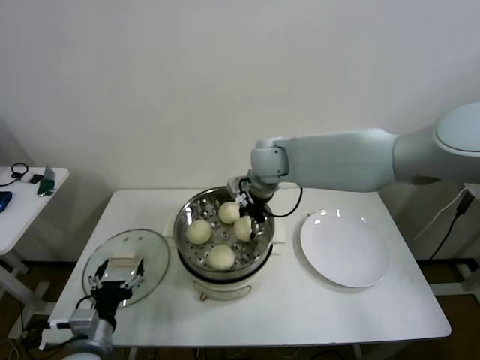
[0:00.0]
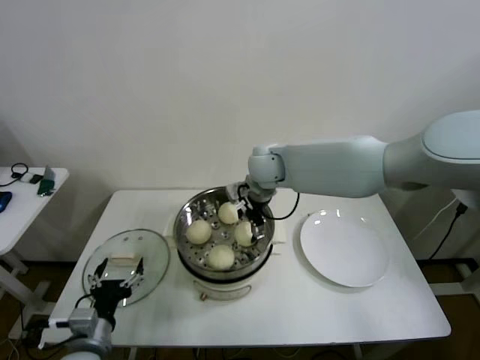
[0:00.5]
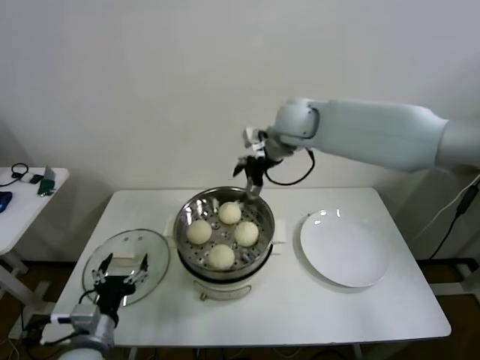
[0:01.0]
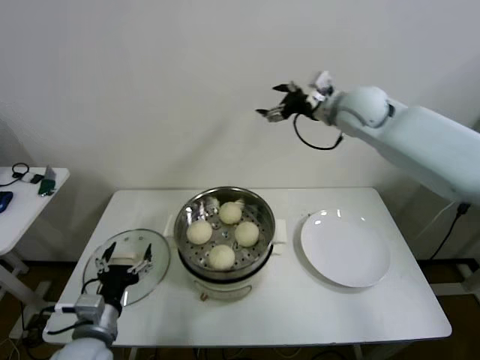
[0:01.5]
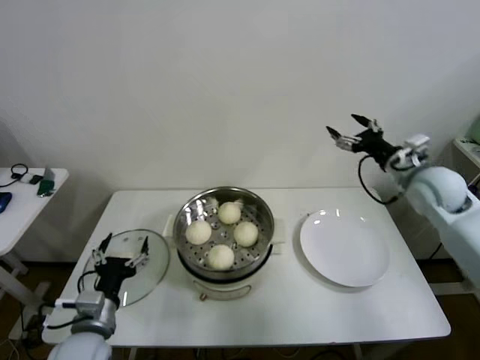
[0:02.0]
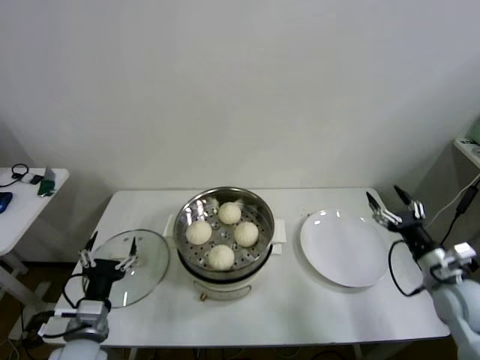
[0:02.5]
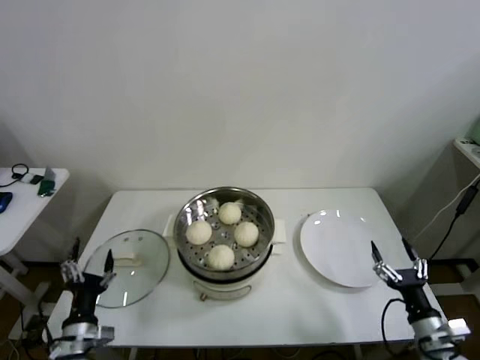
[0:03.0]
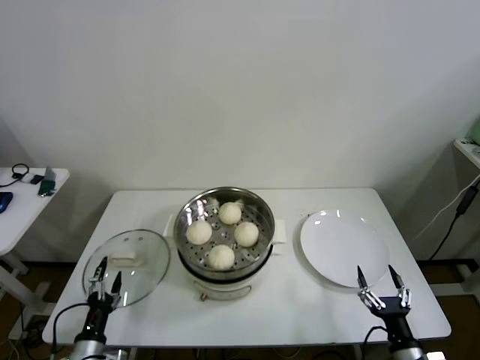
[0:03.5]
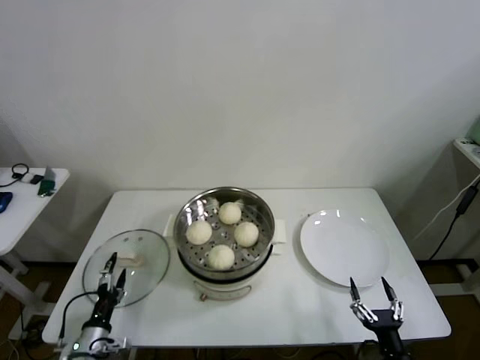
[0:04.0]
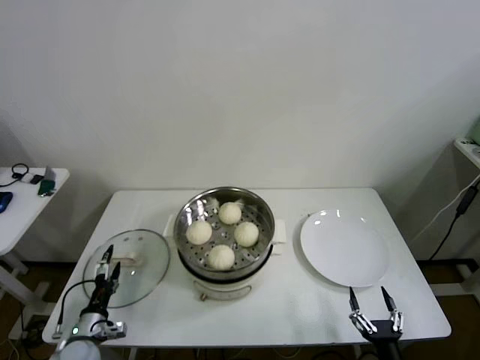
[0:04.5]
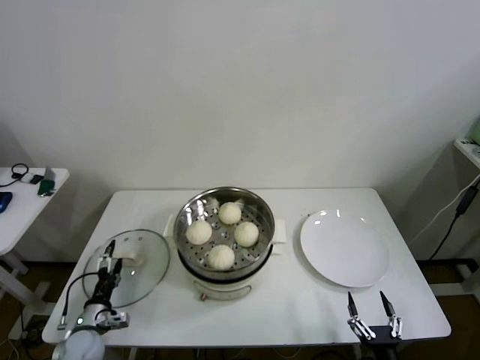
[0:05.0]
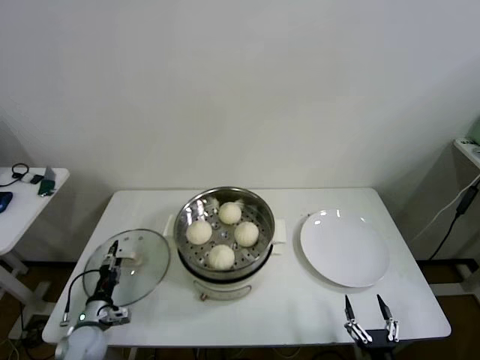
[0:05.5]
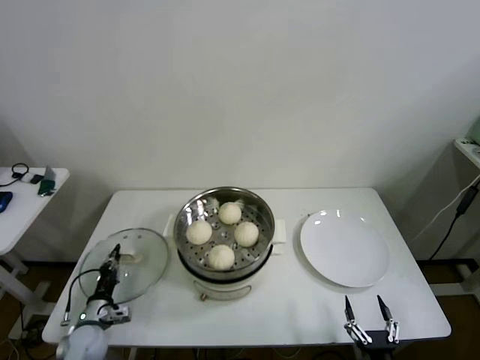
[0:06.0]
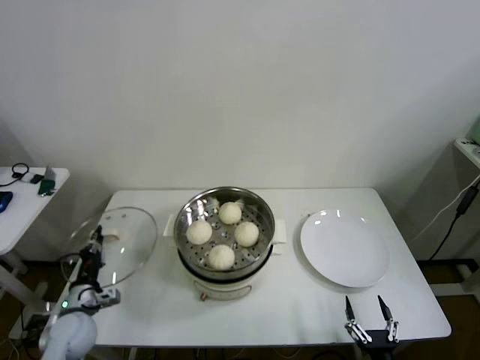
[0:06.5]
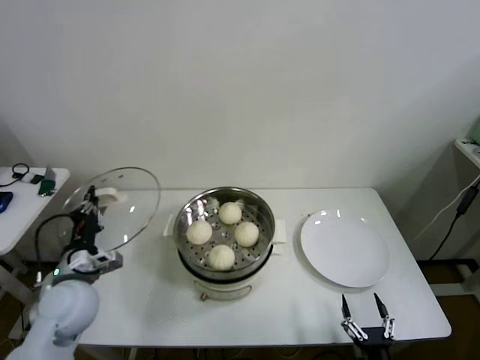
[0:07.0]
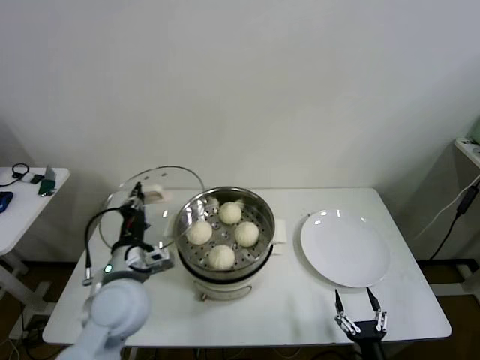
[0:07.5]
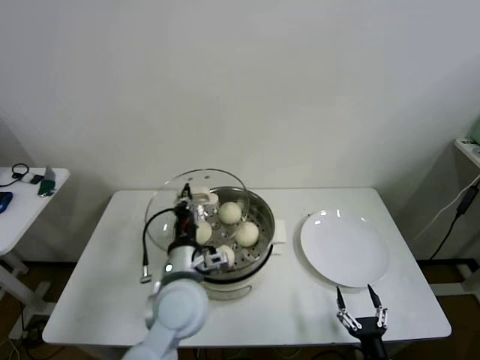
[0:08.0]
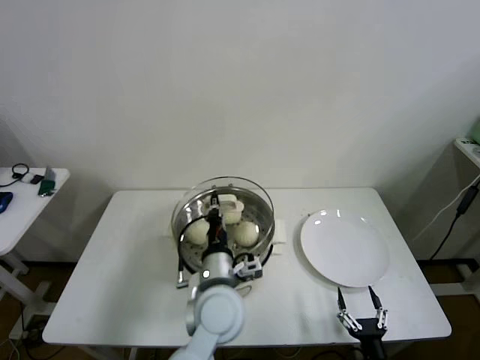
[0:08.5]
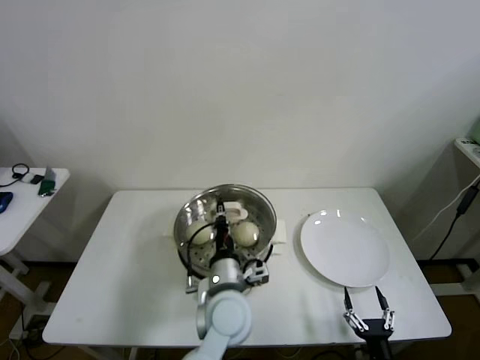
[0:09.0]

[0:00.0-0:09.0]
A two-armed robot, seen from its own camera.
Step, 0:00.5 to 0:05.5: Grasp the pot lid with left gripper.
0:00.0 to 0:02.0: The right gripper is displaced to the right by some 35 cm, and opens.
0:02.0 to 0:04.5: The right gripper moves backward and downward, approximately 50 cm. Meanwhile the left gripper travels downward and to the left by approximately 20 cm.
0:04.5 to 0:07.0: The left gripper goes some 20 cm upward, and closes up.
0:07.0 to 0:09.0: The left gripper travels to the right by roughly 30 cm.

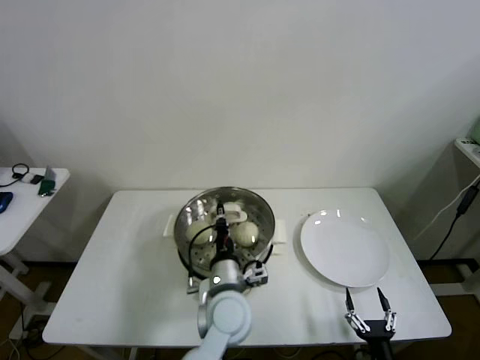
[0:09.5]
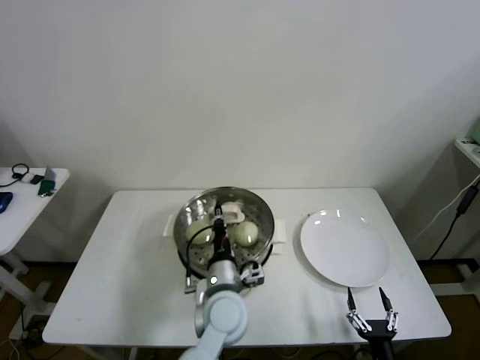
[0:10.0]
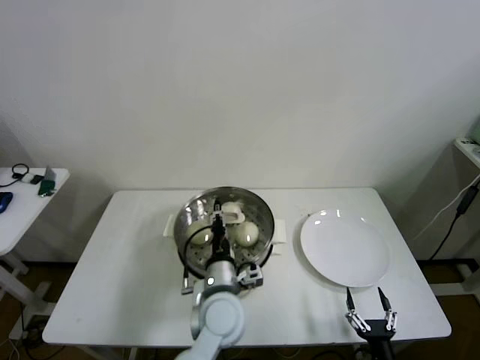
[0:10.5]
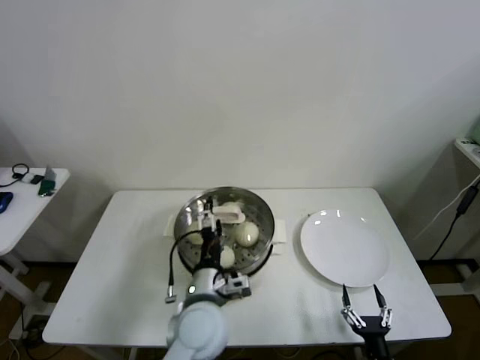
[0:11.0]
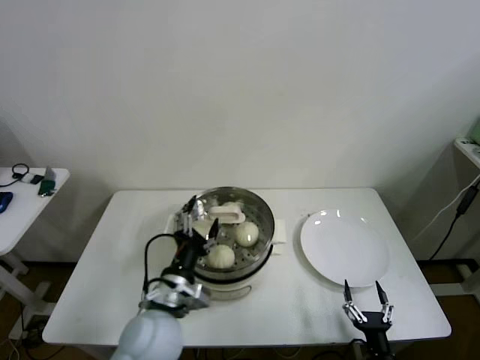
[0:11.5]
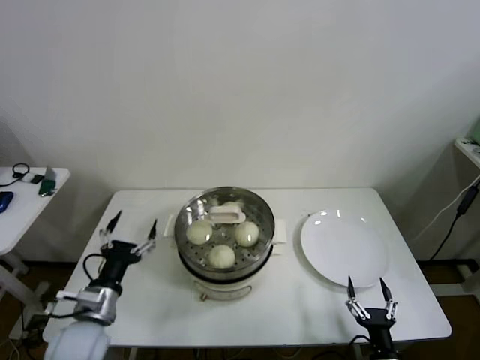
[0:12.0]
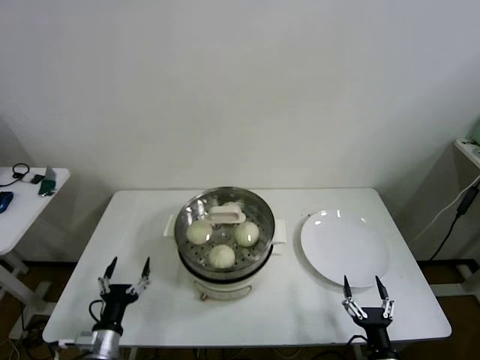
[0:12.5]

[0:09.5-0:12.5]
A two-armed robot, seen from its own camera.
0:09.5 to 0:11.0: The left gripper changes place by roughly 5 cm, and opens up.
0:11.0 to 0:12.5: The left gripper heads to the left and downward, covering roughly 30 cm.

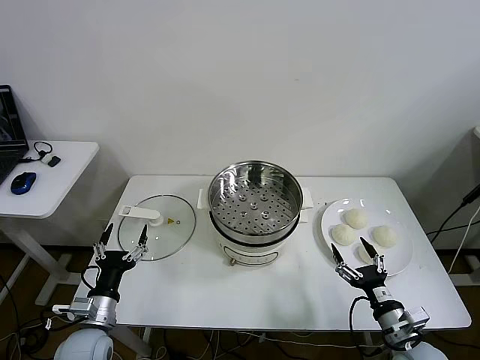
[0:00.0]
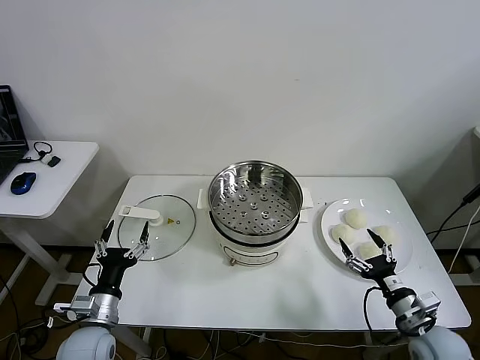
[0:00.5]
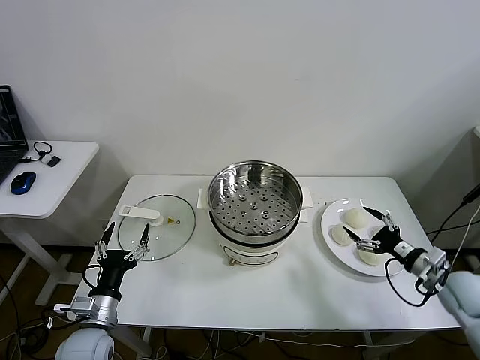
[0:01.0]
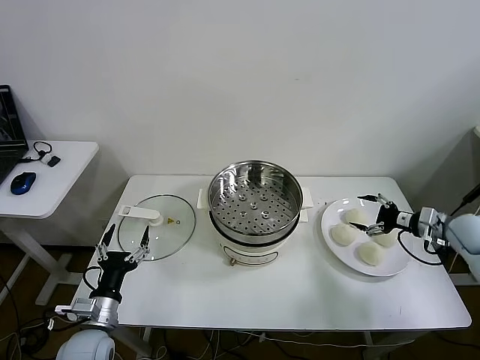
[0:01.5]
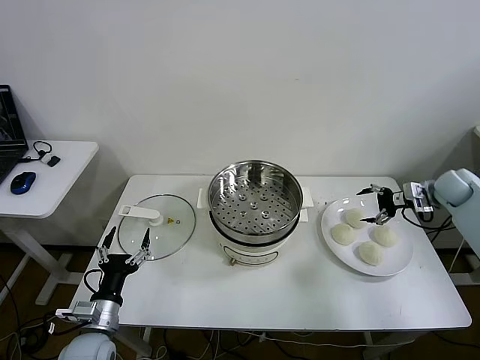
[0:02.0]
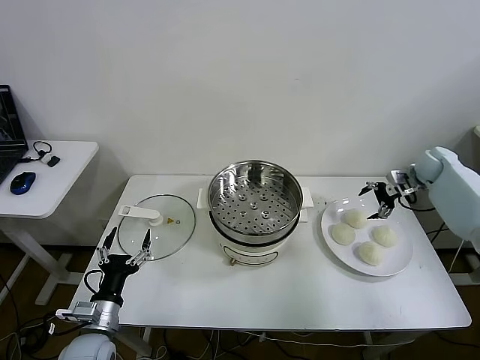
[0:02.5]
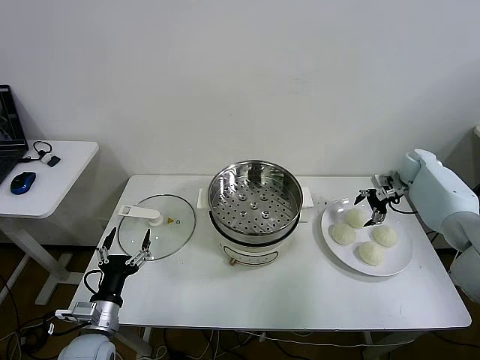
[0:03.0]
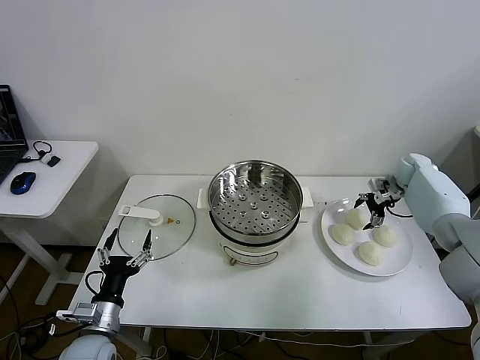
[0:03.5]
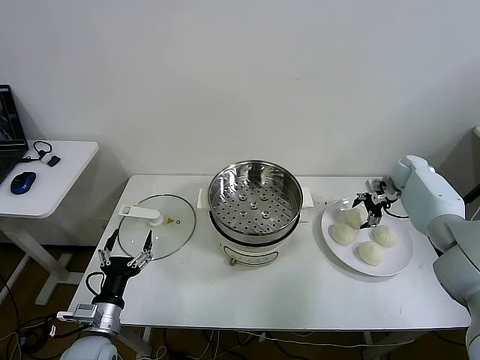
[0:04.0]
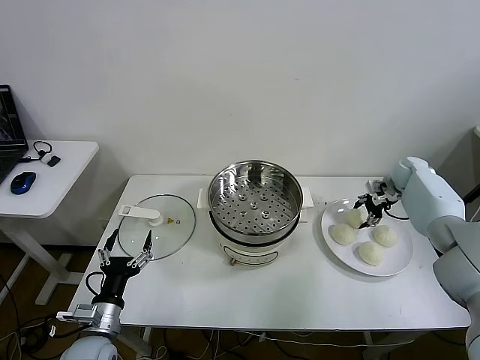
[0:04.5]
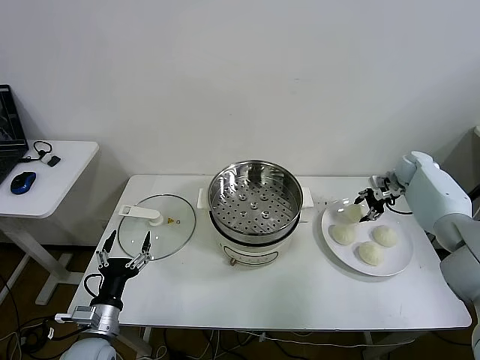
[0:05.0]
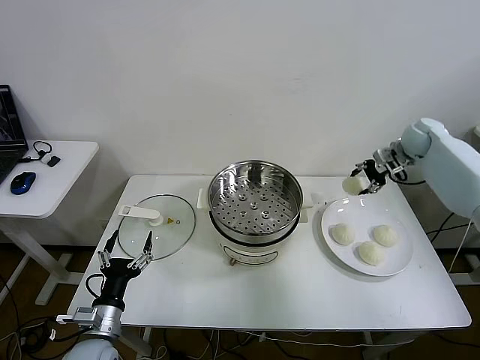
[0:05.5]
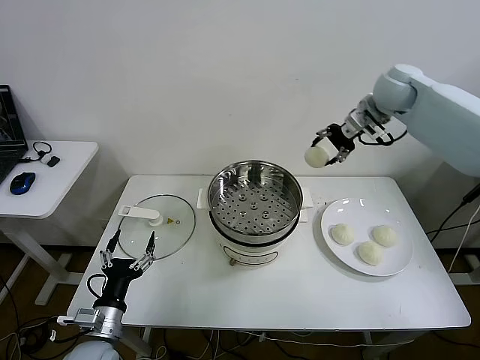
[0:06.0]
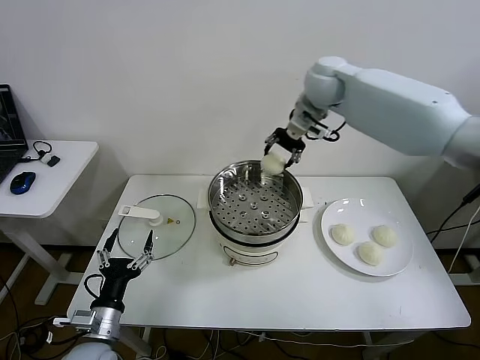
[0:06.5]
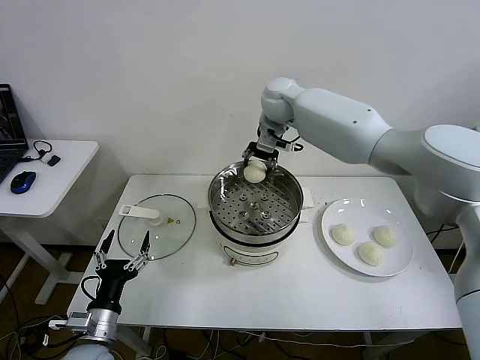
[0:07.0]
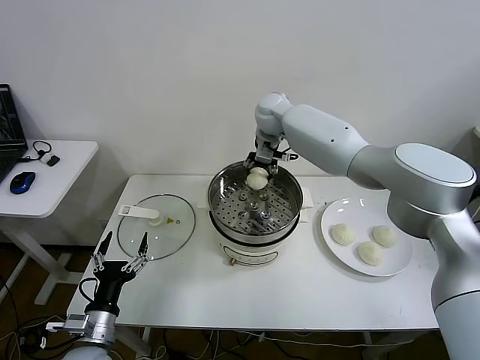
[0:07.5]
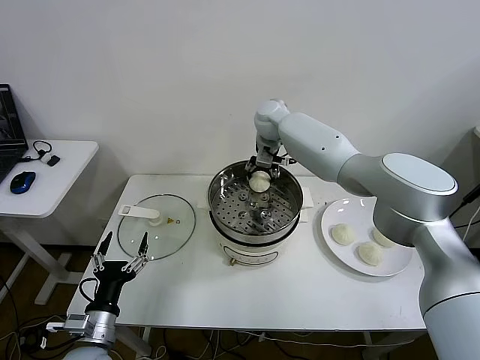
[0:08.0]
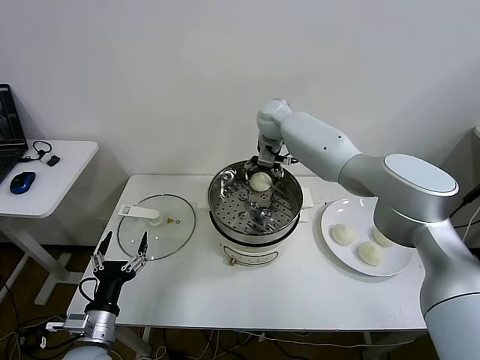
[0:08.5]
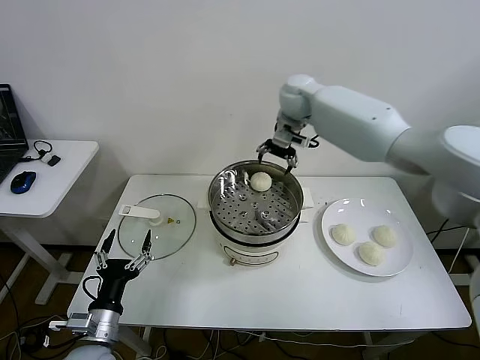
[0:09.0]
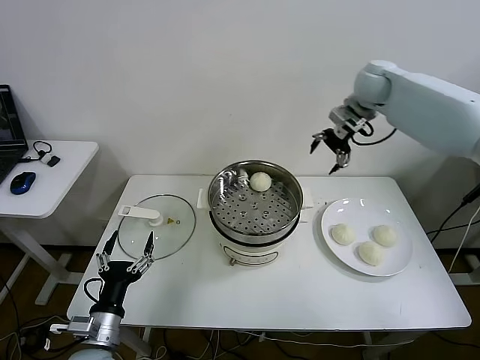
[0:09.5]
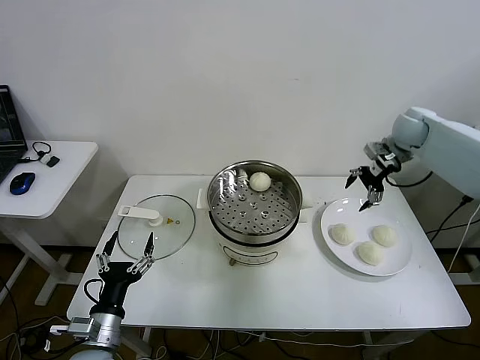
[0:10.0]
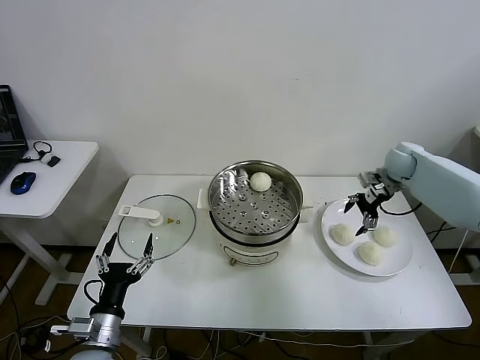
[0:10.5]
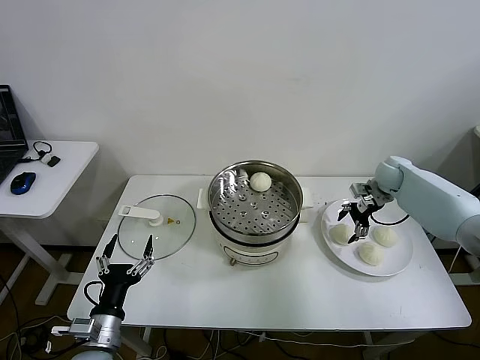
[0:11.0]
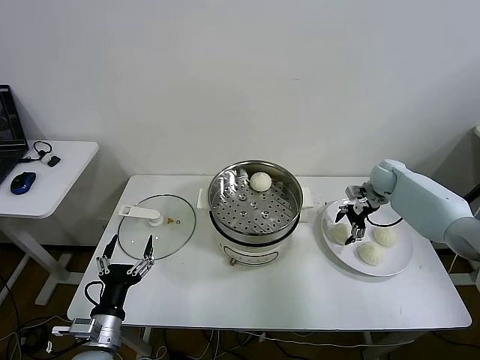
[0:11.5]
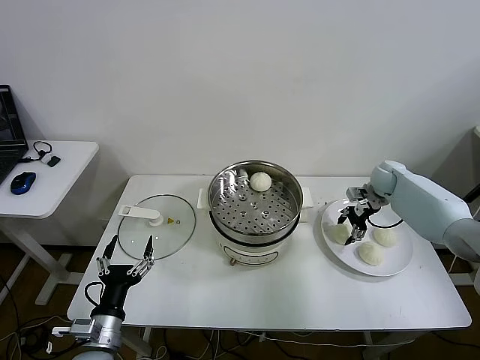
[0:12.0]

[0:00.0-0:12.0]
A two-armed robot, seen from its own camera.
Step, 0:00.0 to 0:04.5: Grasp the baozi in the plate with right gripper.
Step, 0:05.0 to 0:08.5: Place the baozi on the steamer with right gripper.
0:02.0 to 0:04.0: The right gripper goes roughly 10 cm forward and to the left.
0:04.0 to 0:06.0: The right gripper travels upward and to the left by some 30 cm, and closes up.
0:06.0 to 0:08.0: The right gripper moves to the left and downward, about 25 cm.
0:08.0 to 0:10.0: The right gripper heads to the right, covering approximately 35 cm, and opens its fingers.
0:10.0 to 0:12.0: The right gripper is displaced downward by about 15 cm, and closes its fingers.

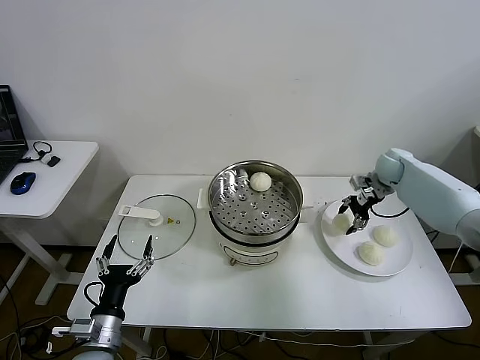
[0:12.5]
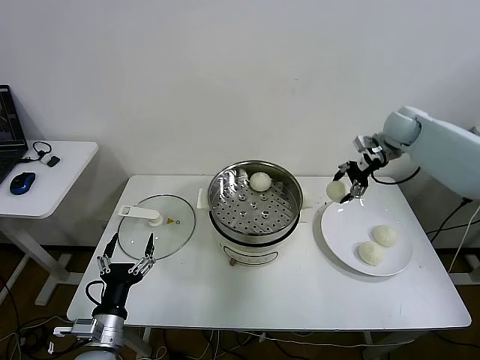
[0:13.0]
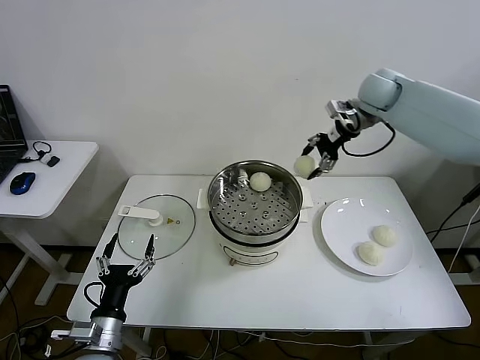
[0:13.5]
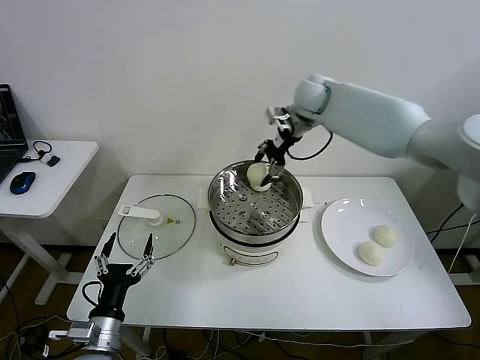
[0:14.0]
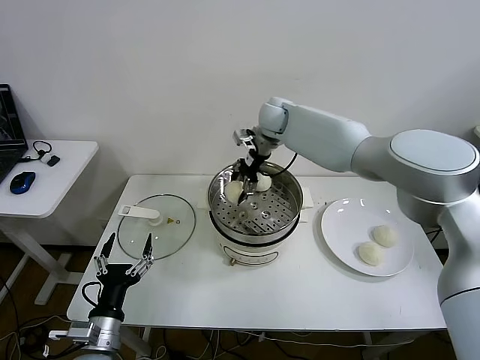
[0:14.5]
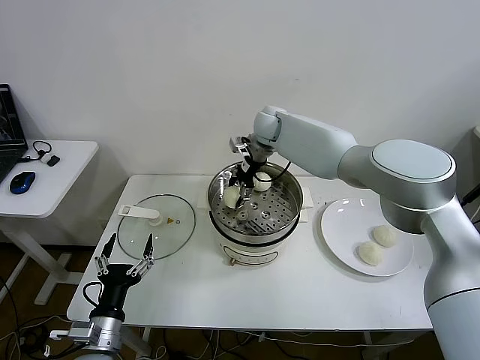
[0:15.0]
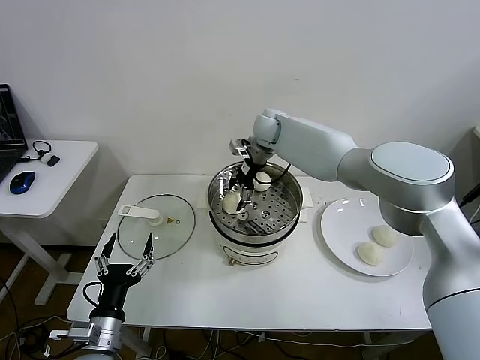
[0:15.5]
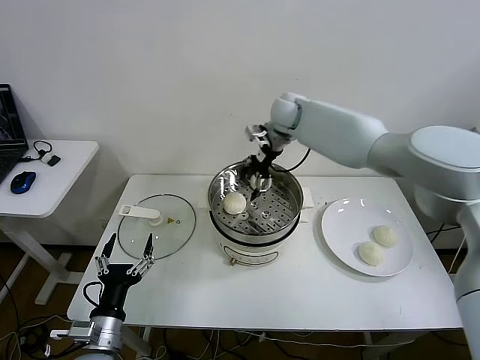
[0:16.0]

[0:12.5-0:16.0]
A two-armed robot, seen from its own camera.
Step, 0:12.5 to 0:15.5: Place the baozi on the steamer with right gripper.
0:12.5 to 0:14.5: The right gripper goes roughly 35 cm to the left.
0:14.5 to 0:16.0: The right gripper opens up.
